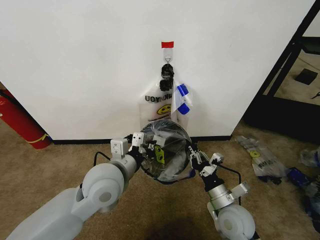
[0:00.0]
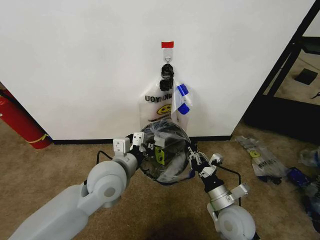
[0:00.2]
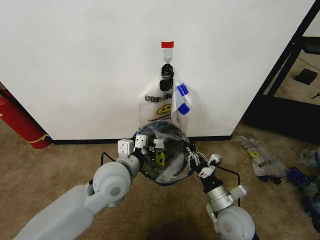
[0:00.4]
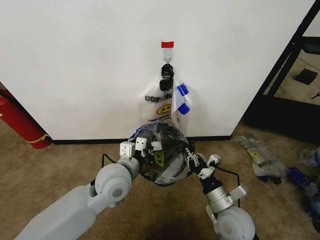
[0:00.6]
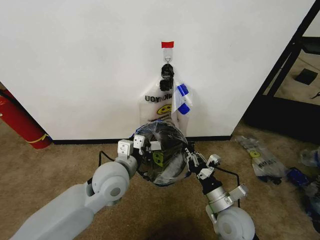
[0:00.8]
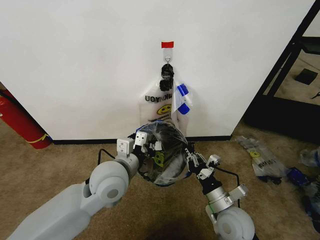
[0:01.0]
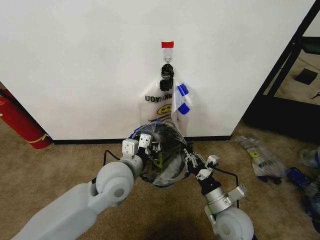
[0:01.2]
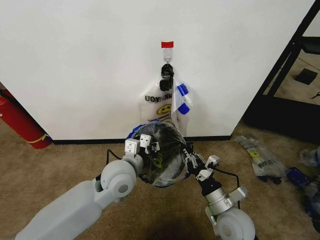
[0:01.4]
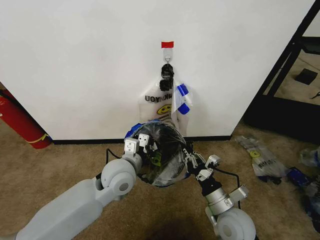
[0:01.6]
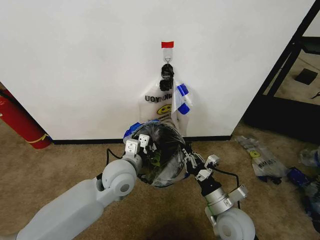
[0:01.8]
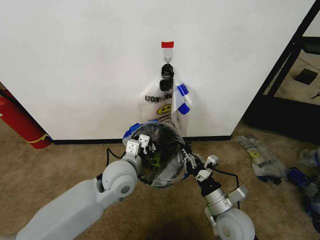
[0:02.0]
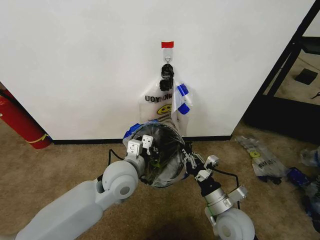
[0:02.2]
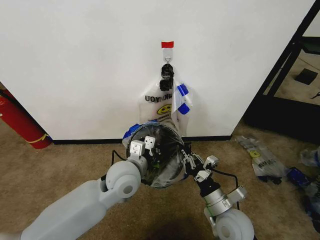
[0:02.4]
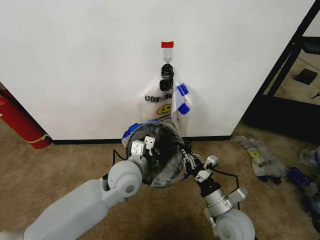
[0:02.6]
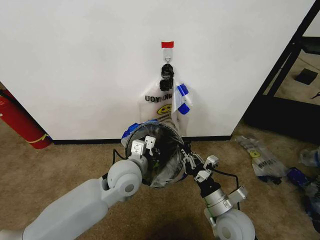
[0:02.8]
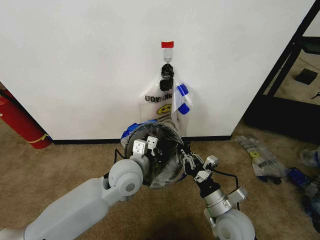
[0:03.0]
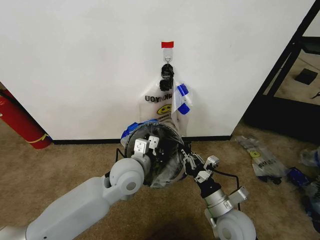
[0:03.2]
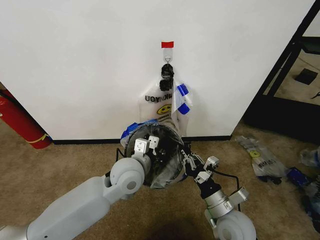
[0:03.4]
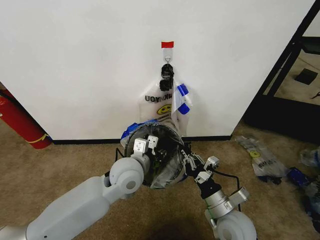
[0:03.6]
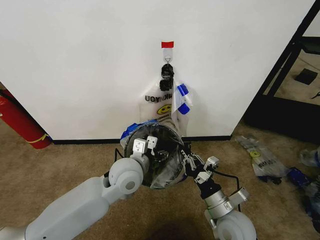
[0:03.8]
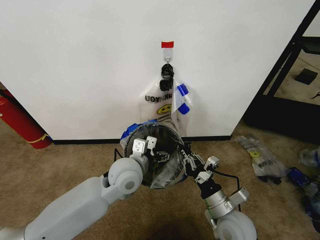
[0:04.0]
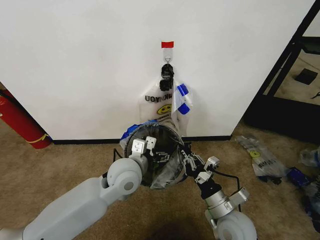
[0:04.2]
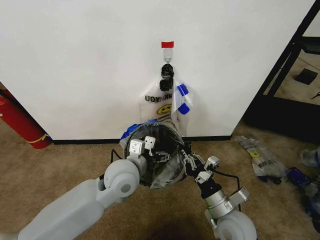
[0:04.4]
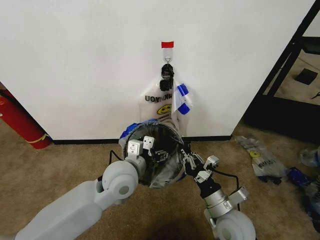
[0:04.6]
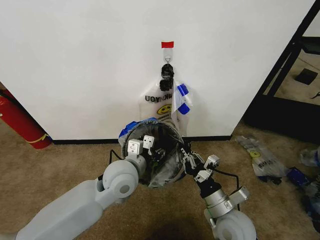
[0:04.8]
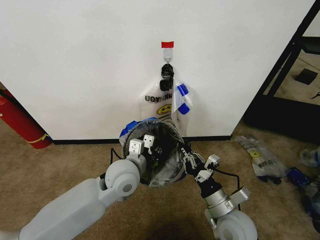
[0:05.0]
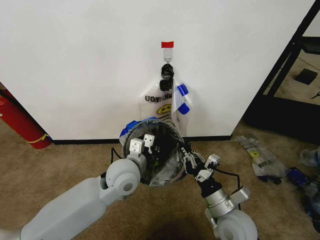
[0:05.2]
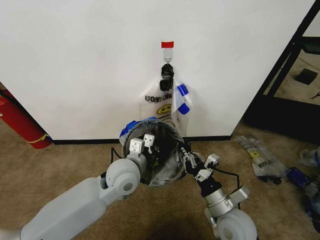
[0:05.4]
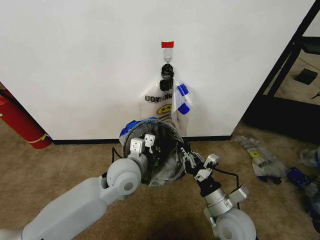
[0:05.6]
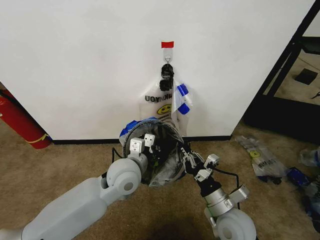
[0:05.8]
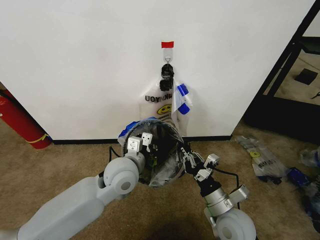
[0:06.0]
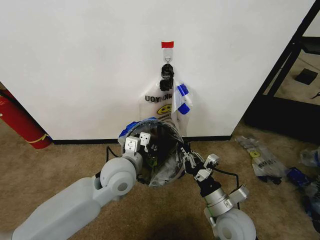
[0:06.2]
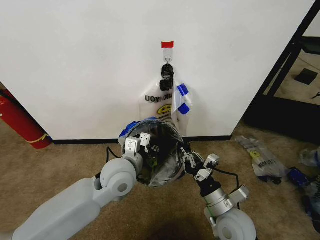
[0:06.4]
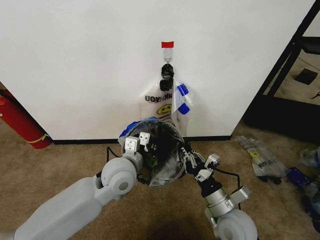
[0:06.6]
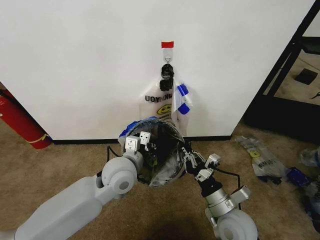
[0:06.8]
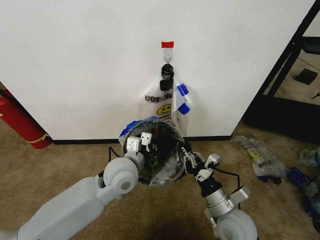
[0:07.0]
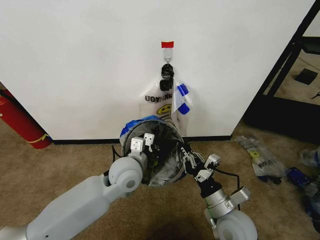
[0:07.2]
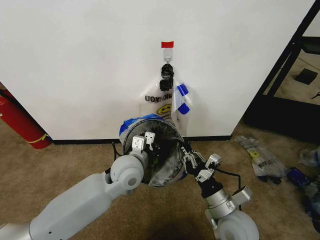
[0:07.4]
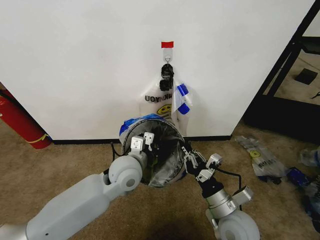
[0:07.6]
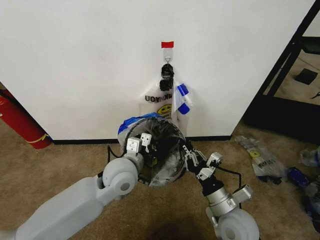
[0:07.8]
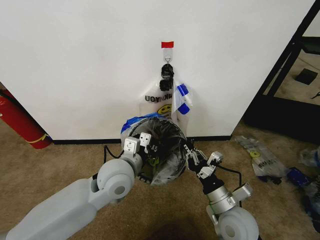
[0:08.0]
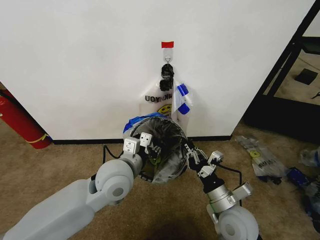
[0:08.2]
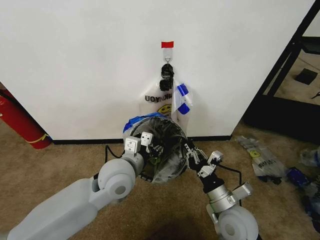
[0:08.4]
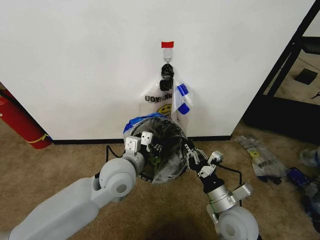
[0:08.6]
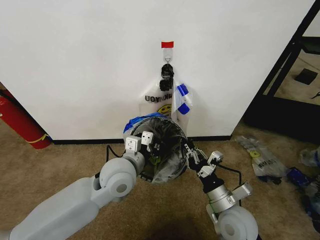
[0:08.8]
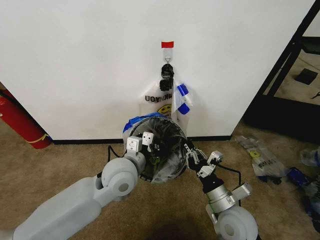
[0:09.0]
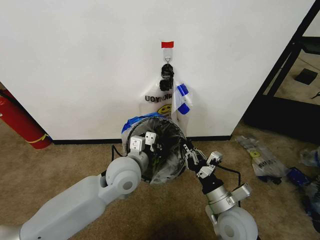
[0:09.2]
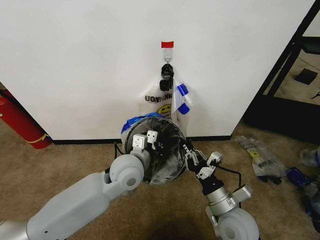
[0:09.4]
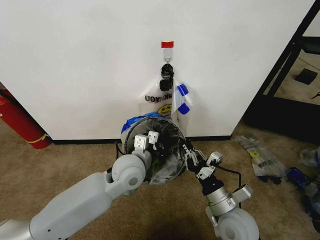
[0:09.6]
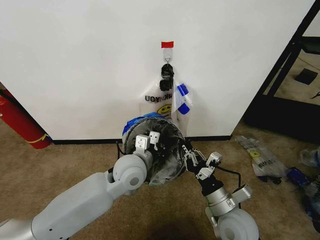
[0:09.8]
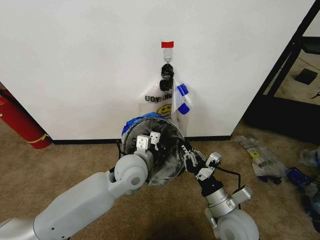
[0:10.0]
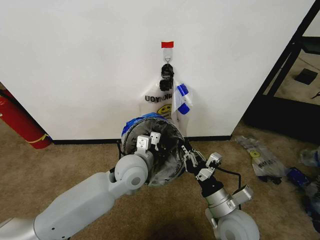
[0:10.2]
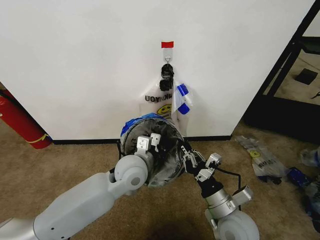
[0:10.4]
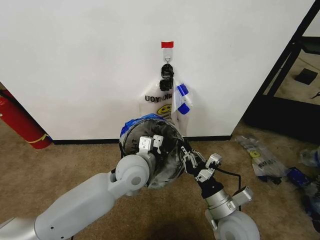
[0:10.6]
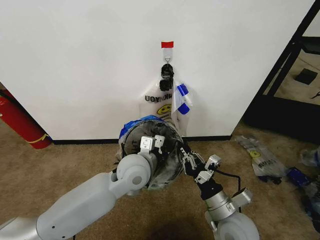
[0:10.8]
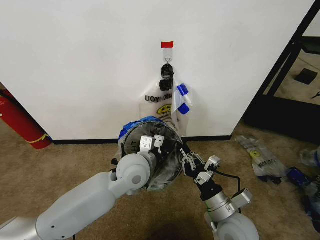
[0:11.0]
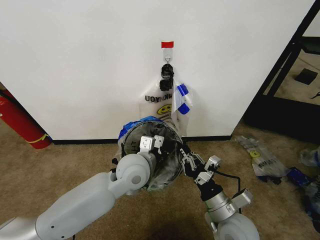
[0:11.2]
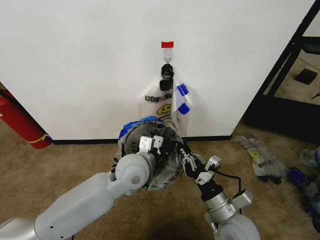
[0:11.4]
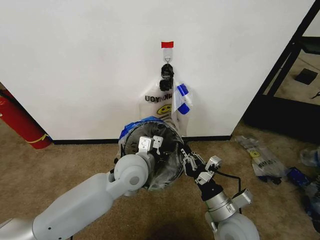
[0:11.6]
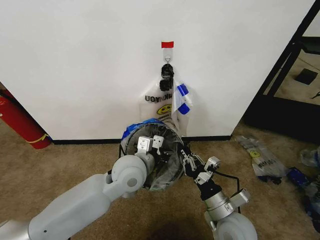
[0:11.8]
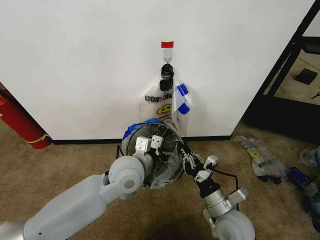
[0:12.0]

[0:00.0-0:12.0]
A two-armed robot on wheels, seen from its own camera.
Task of the whole recording: Pick up the garbage bag from the wall and place it over the trash bin.
0.0 to 1.6 s: The left gripper changes place by about 5 cm.
1.6 to 3.0 s: The grippers move only a little.
3.0 to 4.4 s: The left gripper opens its fingers.
4.4 to 6.0 s: The left gripper closes.
6.0 to 7.6 s: The left gripper opens, then closes once more.
7.6 to 9.0 s: The left gripper opens, then closes once more.
9.0 to 10.4 s: There are only small adjustments of the grippers.
10.4 to 12.0 s: The left gripper opens its fingers.

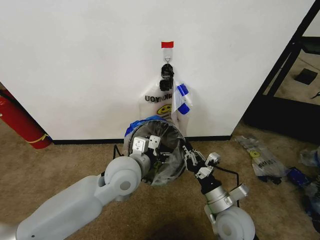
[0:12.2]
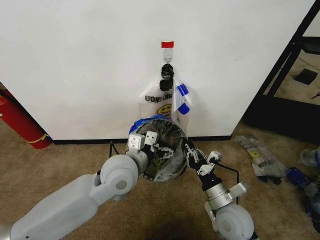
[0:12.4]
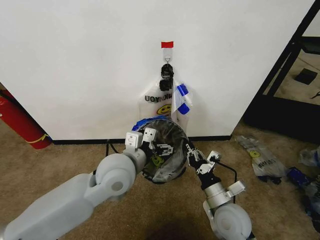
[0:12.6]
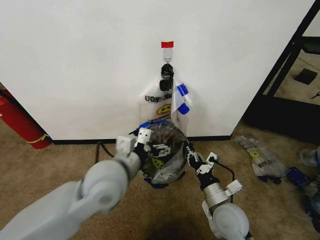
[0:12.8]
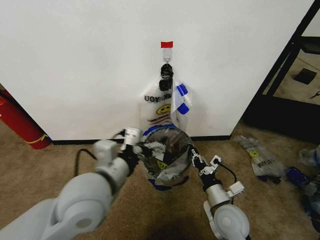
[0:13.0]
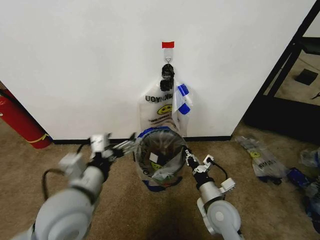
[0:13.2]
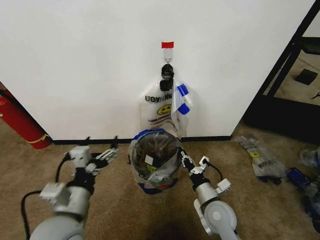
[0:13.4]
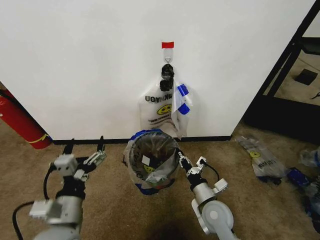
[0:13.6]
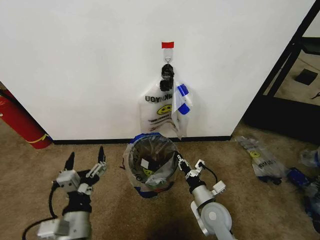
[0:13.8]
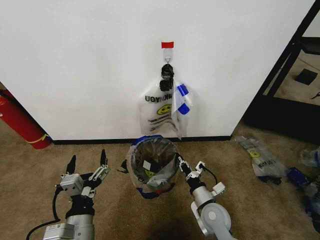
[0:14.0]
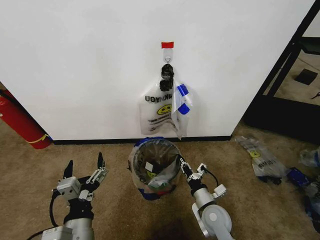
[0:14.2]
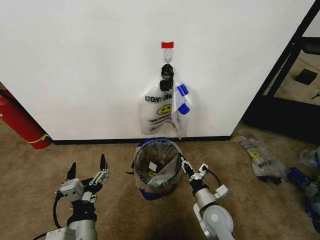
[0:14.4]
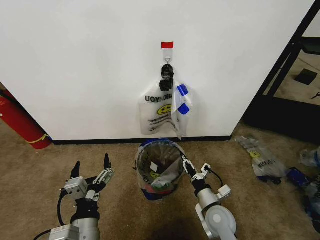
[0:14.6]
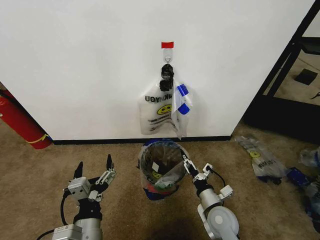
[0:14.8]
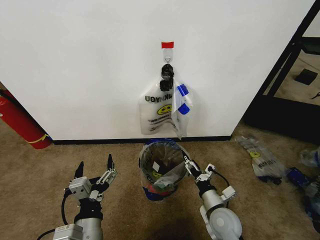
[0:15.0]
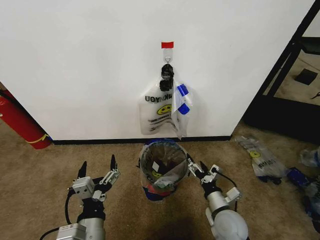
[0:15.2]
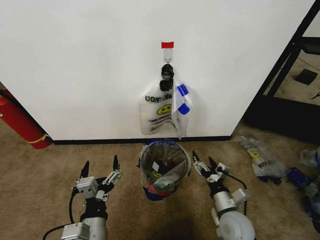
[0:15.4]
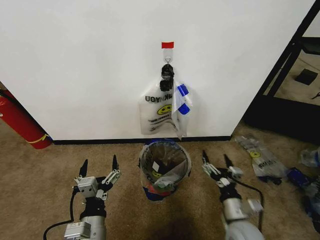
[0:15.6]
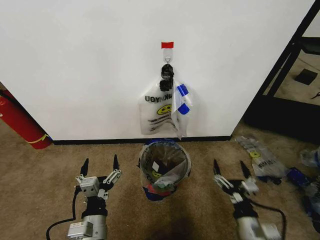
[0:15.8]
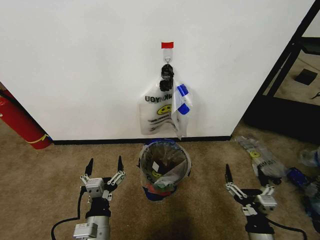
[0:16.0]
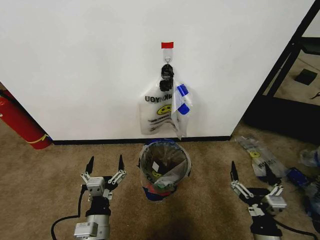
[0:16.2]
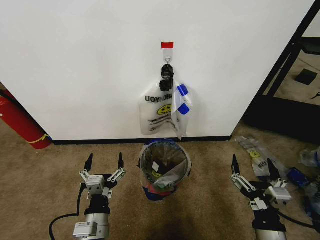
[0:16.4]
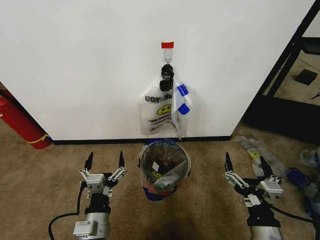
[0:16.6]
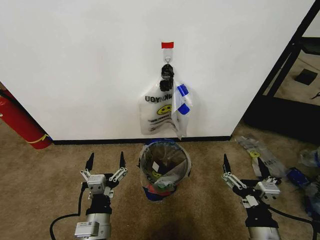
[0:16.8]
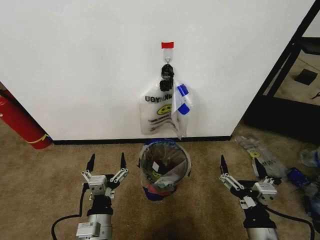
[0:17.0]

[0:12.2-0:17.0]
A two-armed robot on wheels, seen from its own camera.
Task of the whole recording: Pick up the garbage bag from the wall and place it over the trash bin.
12.2 to 13.8 s: The left gripper heads backward, to the left and downward, covering roughly 20 cm, while the right gripper heads downward, covering about 5 cm.
13.8 to 15.4 s: The right gripper travels to the right by some 5 cm, and opens its fingers.
15.4 to 17.0 s: The right gripper goes about 15 cm backward and upward.

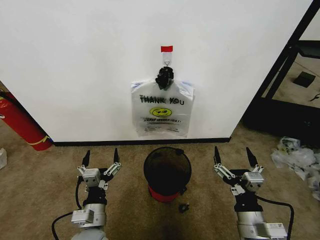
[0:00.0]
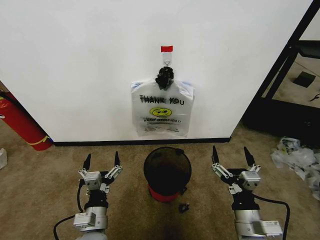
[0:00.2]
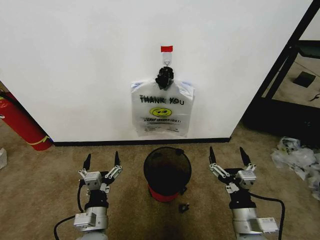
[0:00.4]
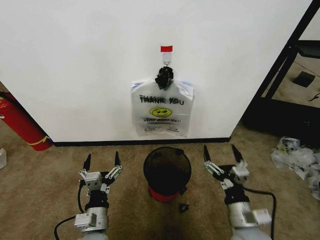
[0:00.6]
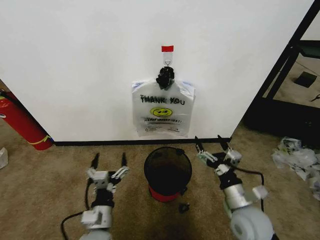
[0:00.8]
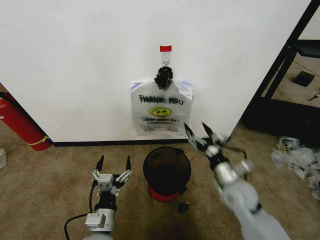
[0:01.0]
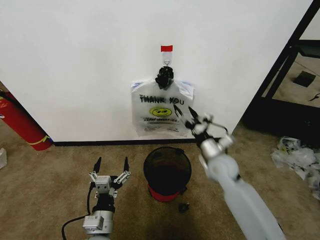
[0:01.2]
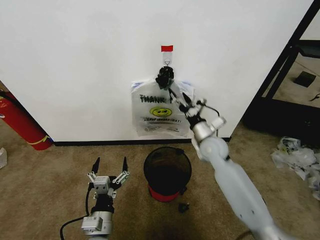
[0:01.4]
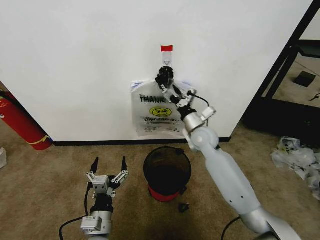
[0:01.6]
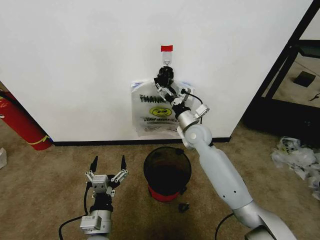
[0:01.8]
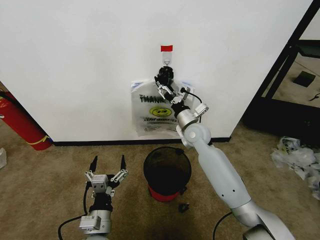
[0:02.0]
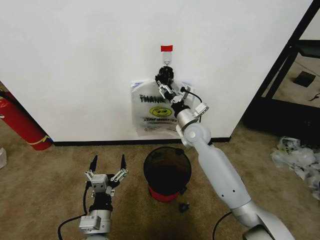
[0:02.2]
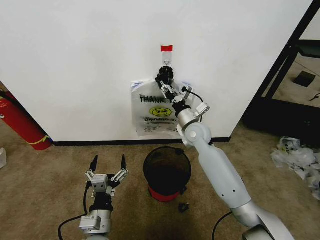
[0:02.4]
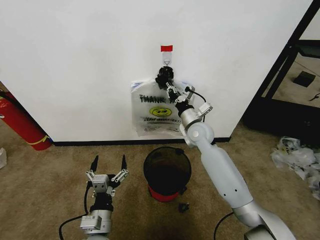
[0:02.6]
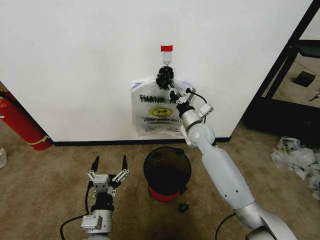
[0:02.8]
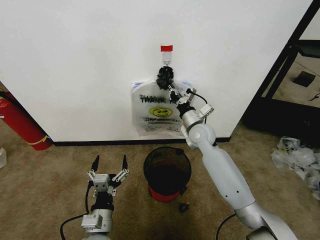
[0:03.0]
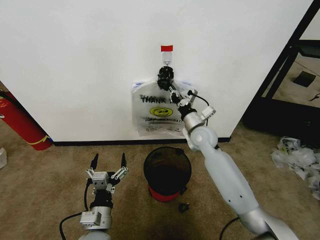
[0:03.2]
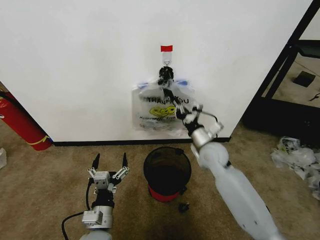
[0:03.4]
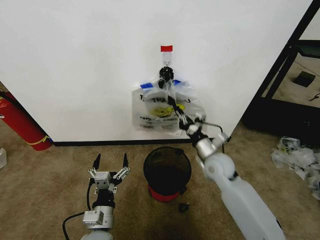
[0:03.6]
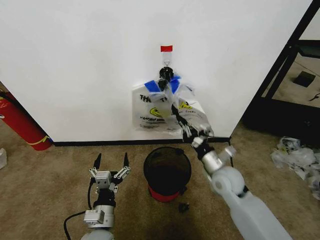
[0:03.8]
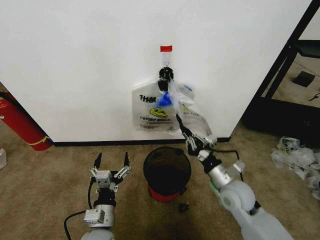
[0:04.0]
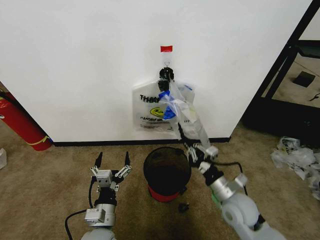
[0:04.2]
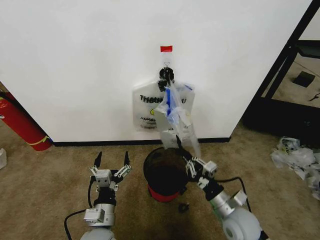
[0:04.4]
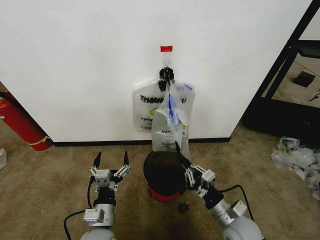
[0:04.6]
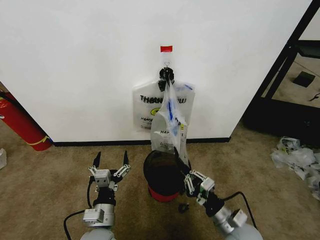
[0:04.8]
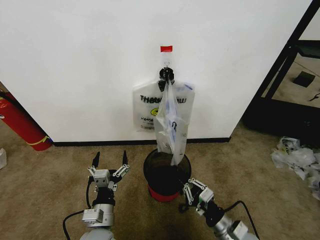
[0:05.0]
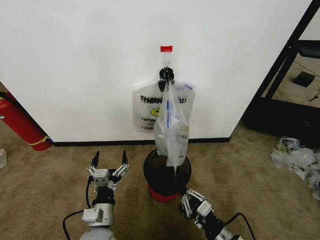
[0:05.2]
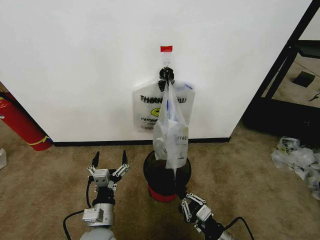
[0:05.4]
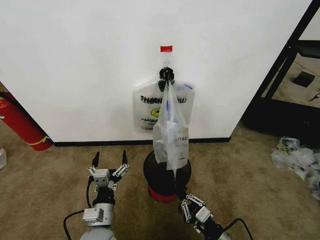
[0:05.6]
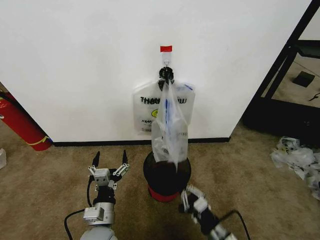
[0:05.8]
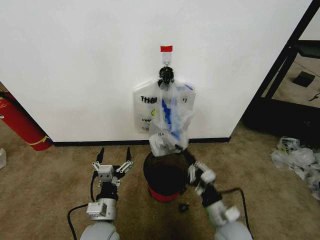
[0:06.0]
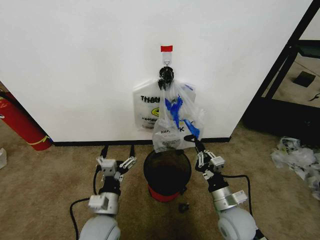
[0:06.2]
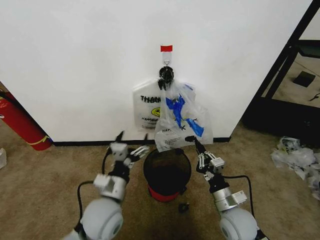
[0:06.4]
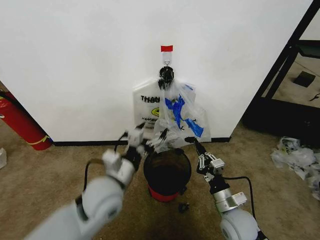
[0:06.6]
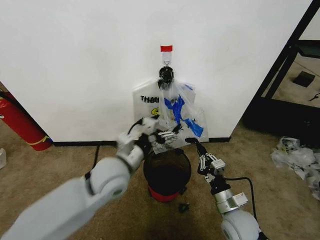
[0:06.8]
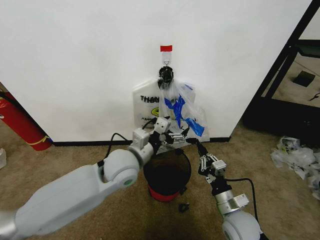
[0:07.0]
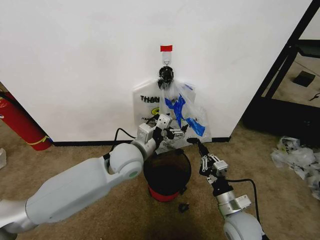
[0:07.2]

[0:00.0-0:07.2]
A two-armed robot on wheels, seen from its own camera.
Task of the whole recording: Pick up the garbage bag from the wall and place it over the trash bin.
1.4 to 2.8 s: The right gripper moves some 5 cm, and closes up.
2.8 to 4.4 s: The right gripper travels backward and downward by approximately 30 cm.
4.4 to 5.8 s: The right gripper is displaced backward and downward by approximately 10 cm.
5.8 to 7.2 s: The right gripper heads forward and upward, covering about 10 cm. Meanwhile the left gripper is displaced forward and upward by roughly 25 cm.
